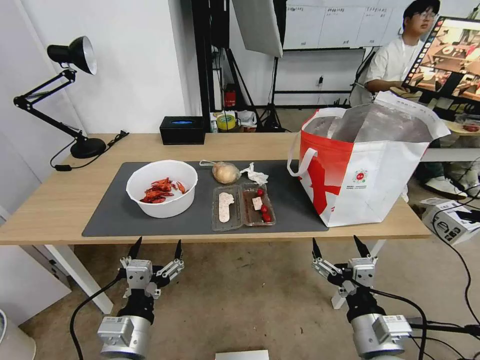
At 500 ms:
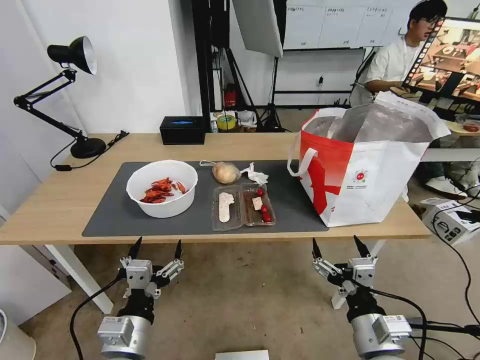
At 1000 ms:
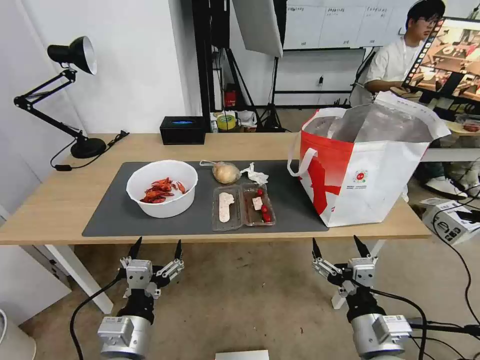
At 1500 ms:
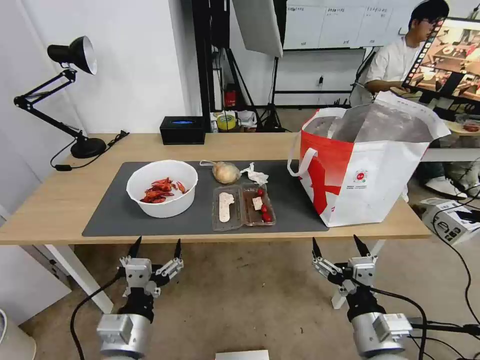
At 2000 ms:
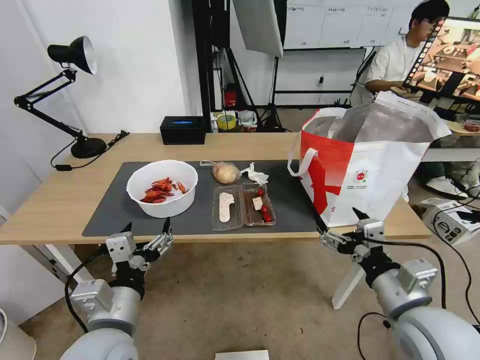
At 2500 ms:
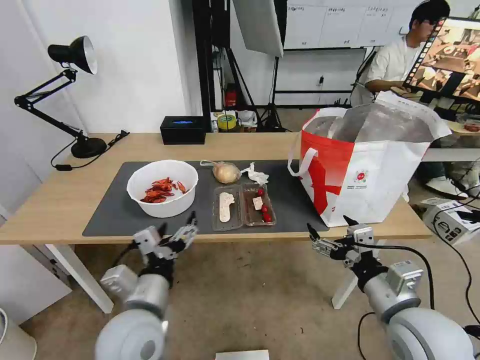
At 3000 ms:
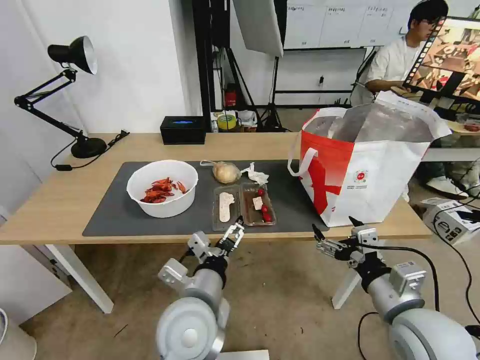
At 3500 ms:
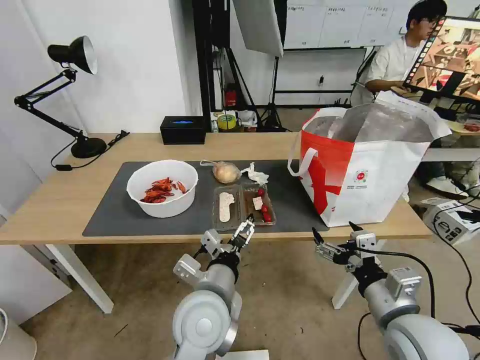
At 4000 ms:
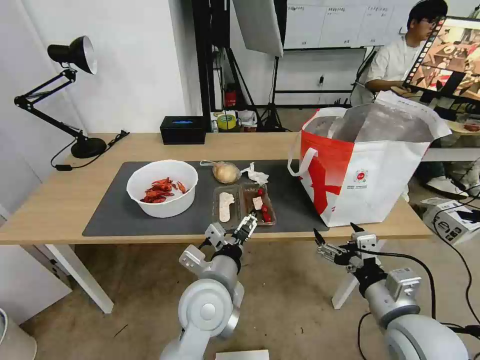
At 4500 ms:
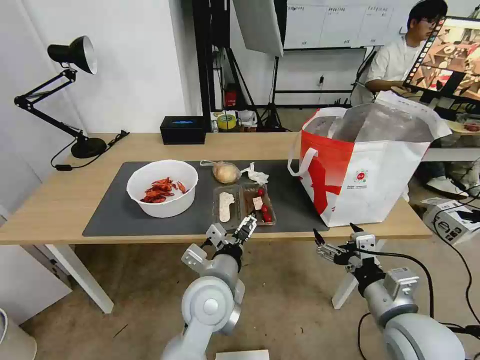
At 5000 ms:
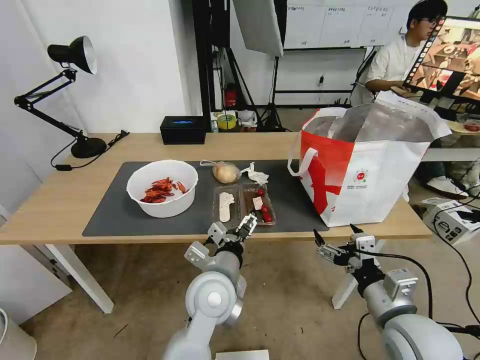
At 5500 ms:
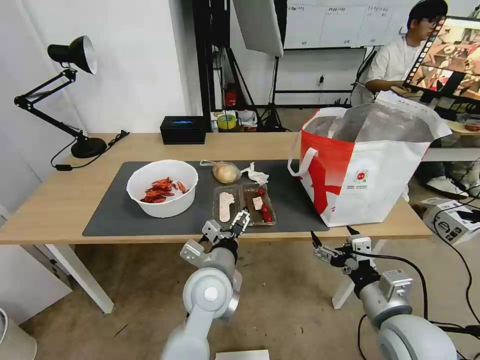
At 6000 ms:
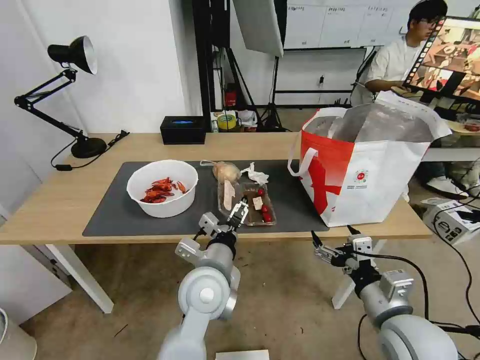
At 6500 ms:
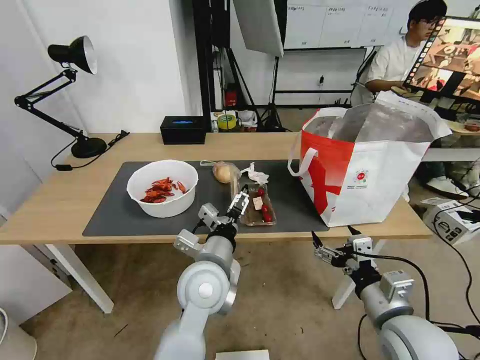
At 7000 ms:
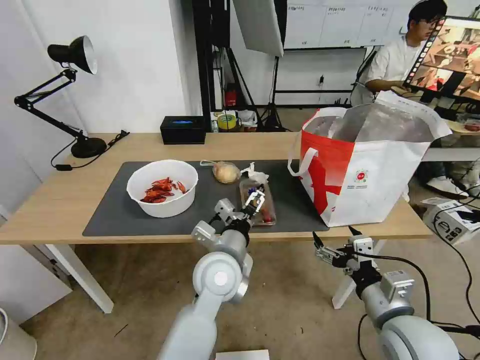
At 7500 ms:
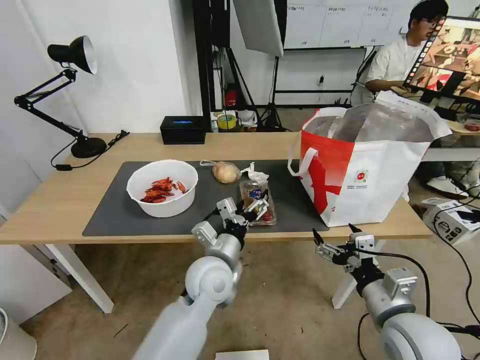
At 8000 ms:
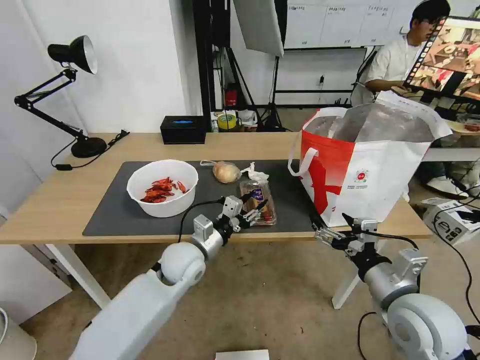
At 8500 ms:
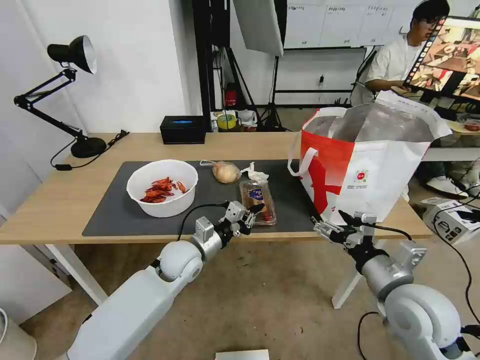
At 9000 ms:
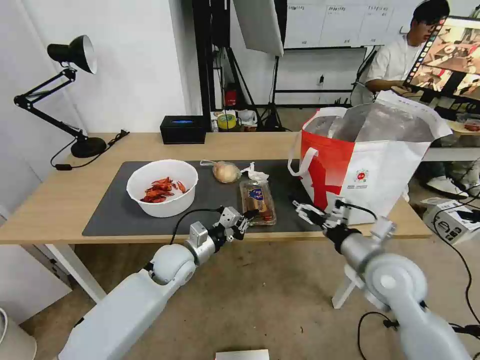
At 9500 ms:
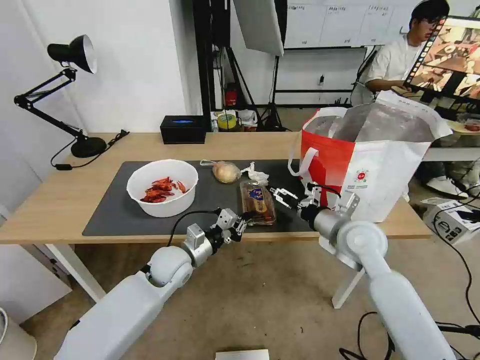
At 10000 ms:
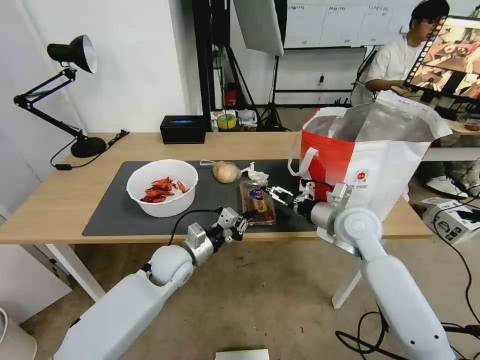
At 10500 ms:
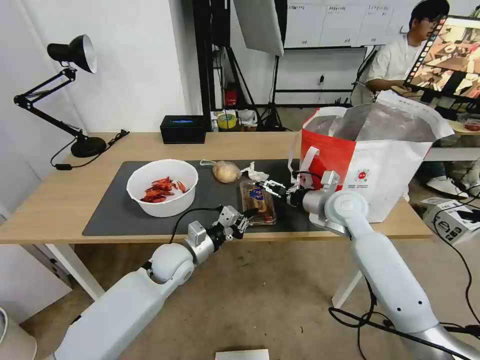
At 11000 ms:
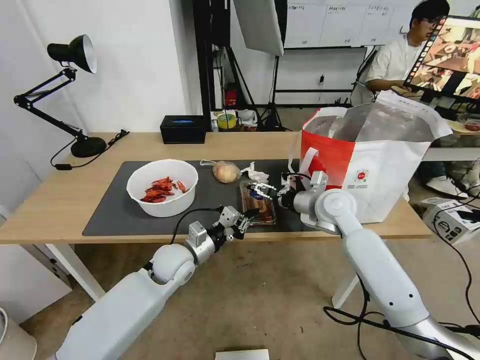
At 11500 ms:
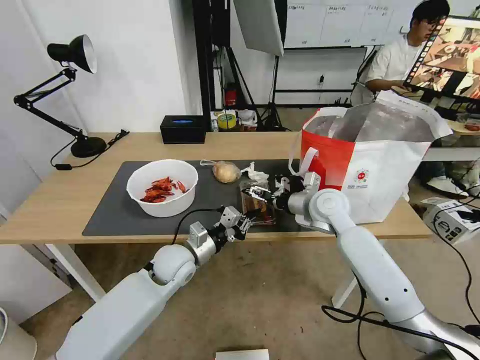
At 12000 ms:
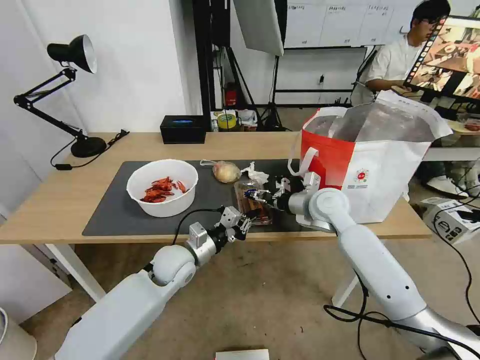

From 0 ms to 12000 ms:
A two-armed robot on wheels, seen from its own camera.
Task of the whole recording: Pick up the trash from the table and place it into the takeout bag.
From 2000 ms to 4000 ms: The left gripper goes some 15 cm to the right and forward.
From 4000 ms to 6000 ms: The grippers stay close to where they were, moving slightly.
From 6000 ms to 8000 ms: The left gripper is displaced forward, to the left and downward by roughly 10 cm, and closes its fingers.
From 8000 ms to 10000 ms: The right gripper heads forward, covering about 20 cm. Meanwhile the left gripper closes.
From 10000 ms to 12000 ms: The right gripper goes some 5 cm forward, and closes up.

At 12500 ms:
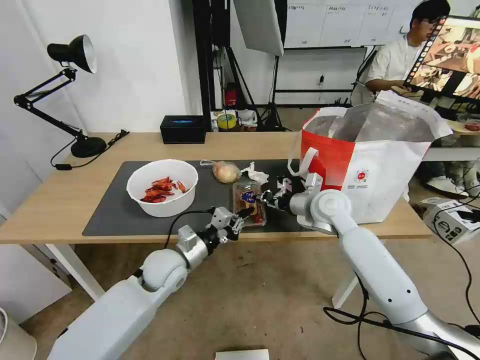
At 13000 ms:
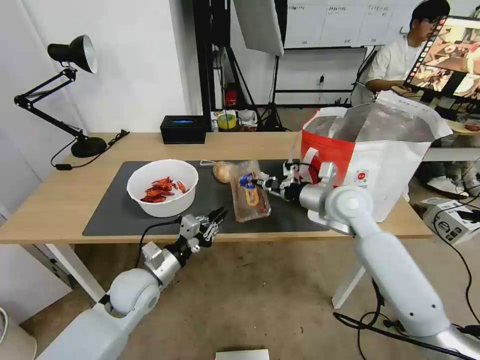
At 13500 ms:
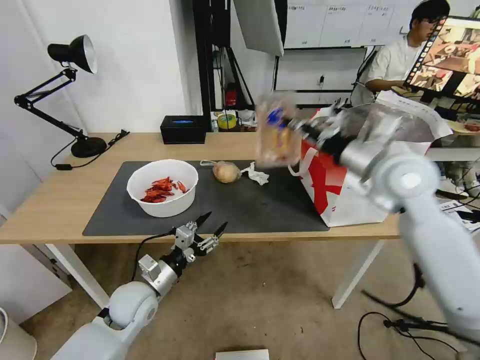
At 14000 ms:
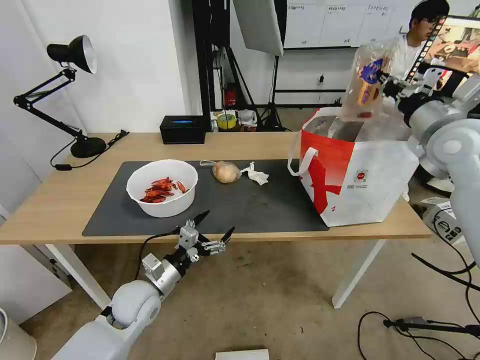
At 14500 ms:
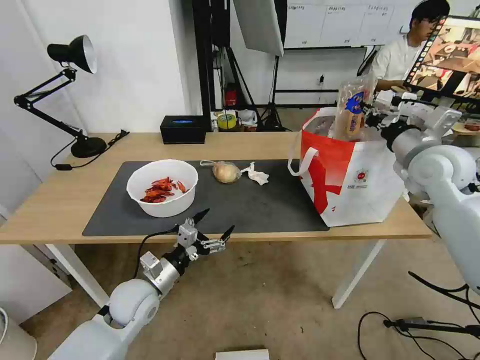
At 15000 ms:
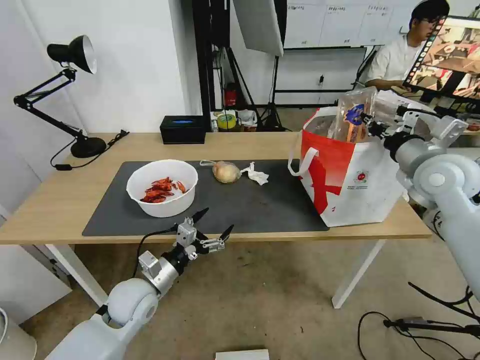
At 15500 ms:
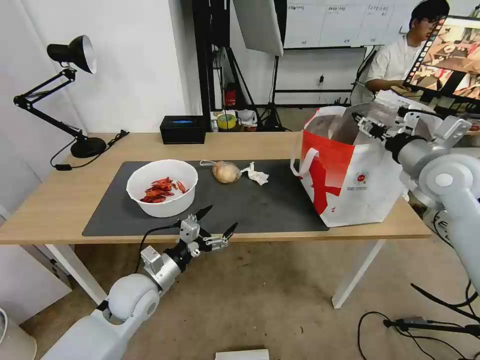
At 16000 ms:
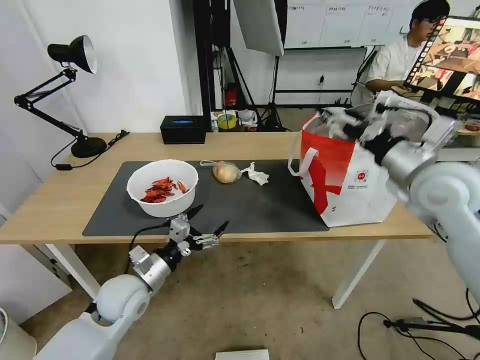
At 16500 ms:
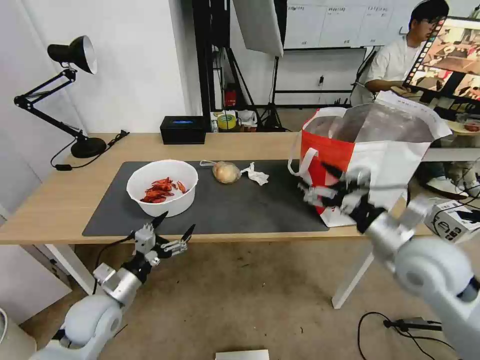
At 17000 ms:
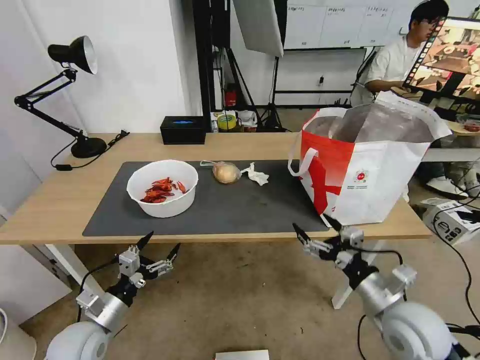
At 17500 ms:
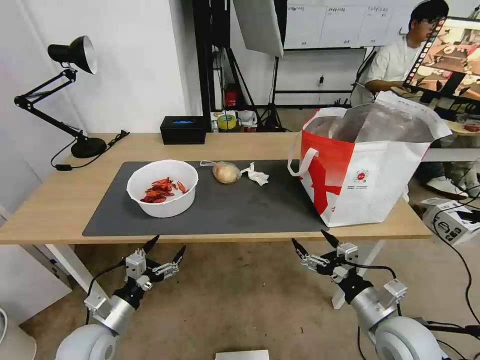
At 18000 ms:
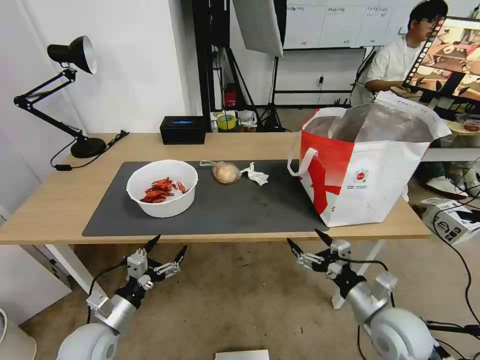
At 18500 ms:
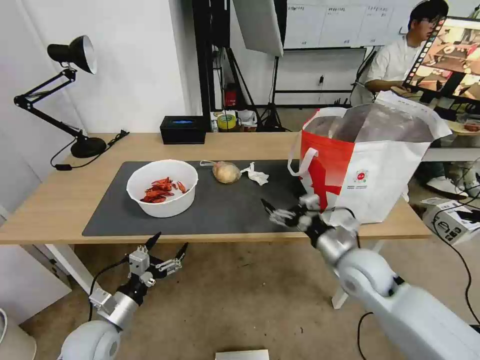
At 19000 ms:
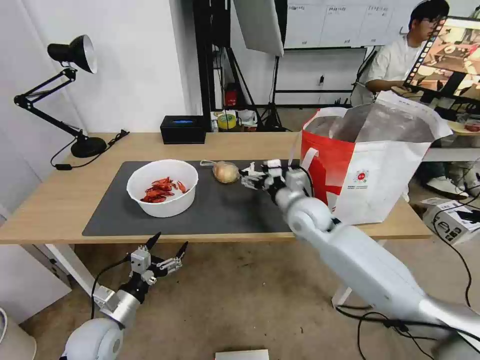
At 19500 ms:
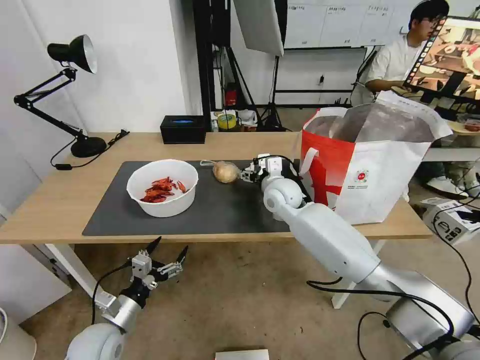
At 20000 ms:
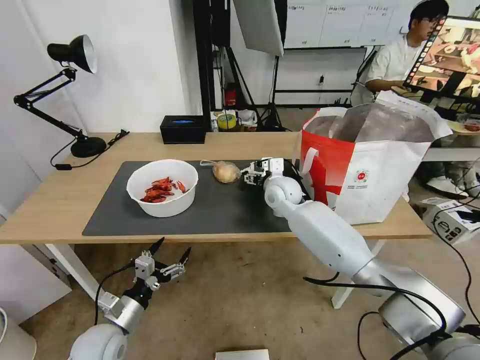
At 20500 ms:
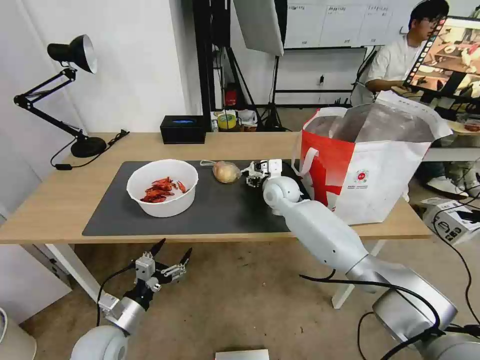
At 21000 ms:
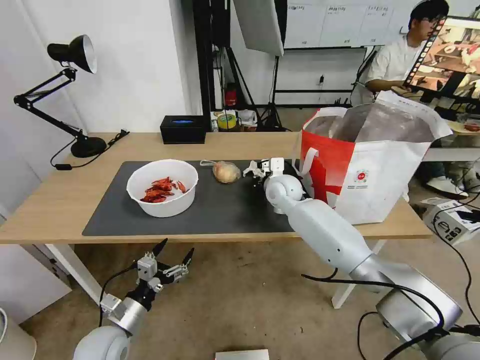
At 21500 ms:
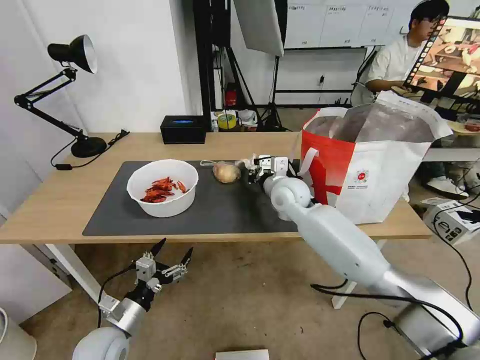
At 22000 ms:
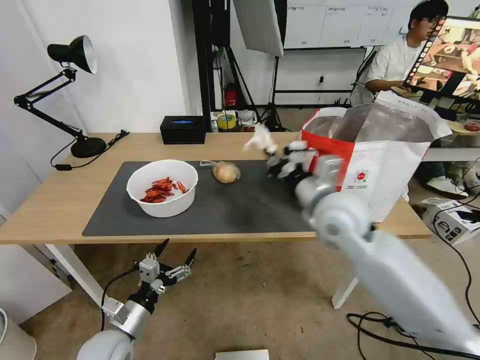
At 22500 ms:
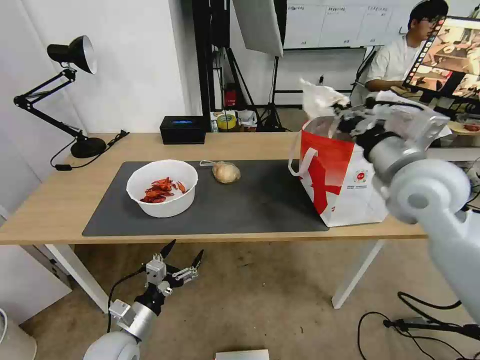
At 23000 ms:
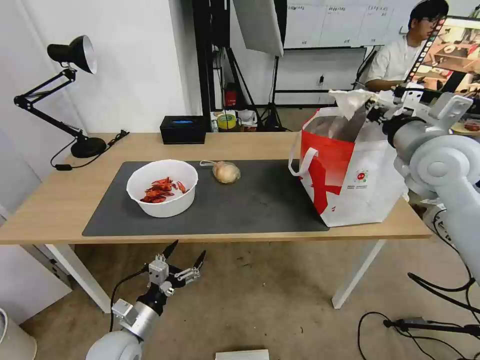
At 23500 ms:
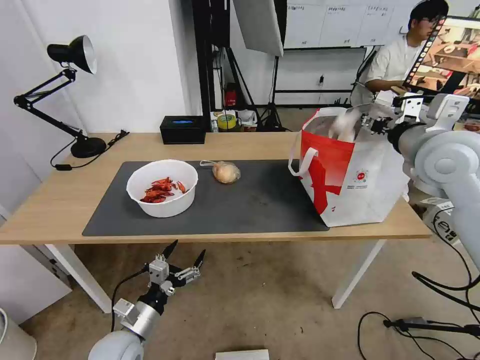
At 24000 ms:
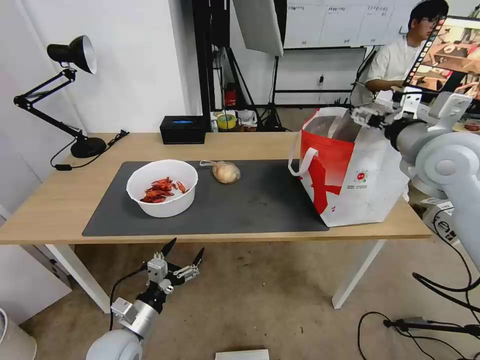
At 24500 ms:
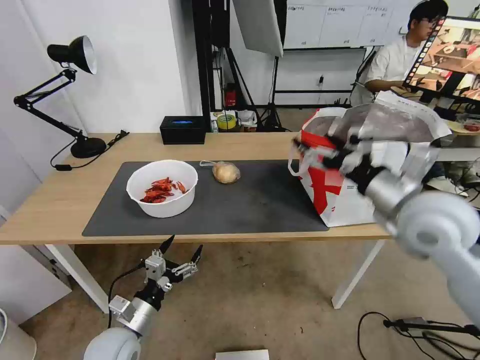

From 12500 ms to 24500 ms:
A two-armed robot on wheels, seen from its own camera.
Task of the whole recording: Pick up the trash from the table and place it into the takeout bag.
From 12500 ms to 14500 ms: The left gripper moves backward and to the left, about 10 cm, and opens its fingers. The right gripper travels to the right and upward by roughly 20 cm.
From 14500 ms to 16500 ms: The right gripper goes about 20 cm backward, downward and to the left, and opens its fingers. Meanwhile the left gripper travels to the left by approximately 5 cm.
From 16500 ms to 18500 ms: The right gripper shifts roughly 10 cm downward and to the left, while the left gripper ends up approximately 5 cm from where it was.
From 18500 ms to 20500 ms: The right gripper shifts roughly 25 cm forward and to the left.
From 20500 ms to 22500 ms: The right gripper travels upward, backward and to the right by approximately 30 cm, and closes its fingers.
From 22500 ms to 24500 ms: The right gripper shifts by about 5 cm, and opens up.

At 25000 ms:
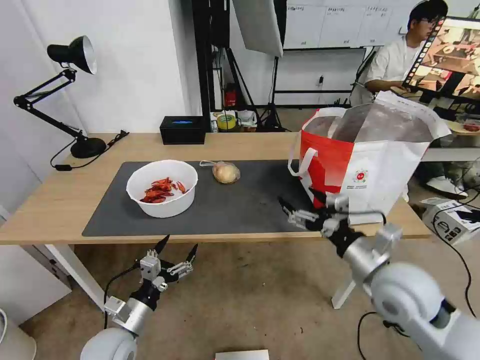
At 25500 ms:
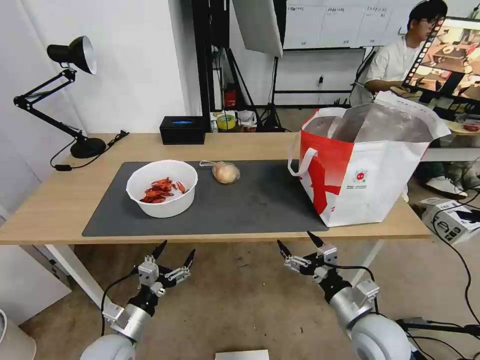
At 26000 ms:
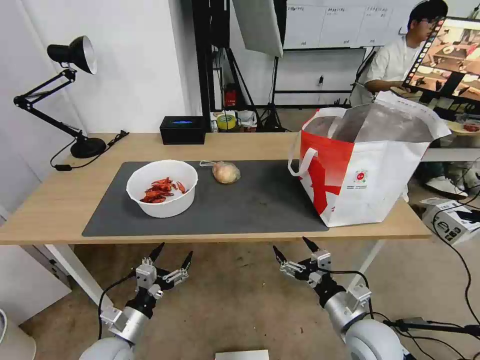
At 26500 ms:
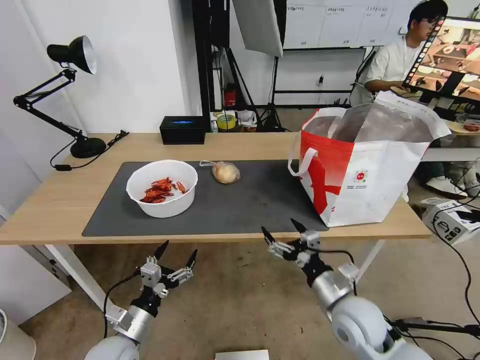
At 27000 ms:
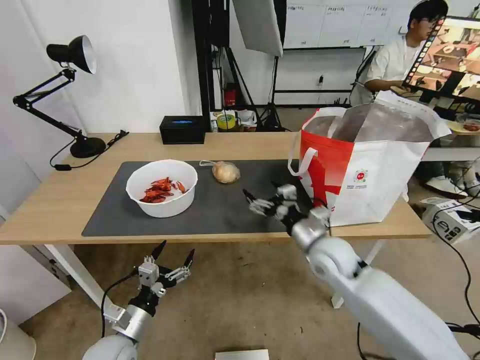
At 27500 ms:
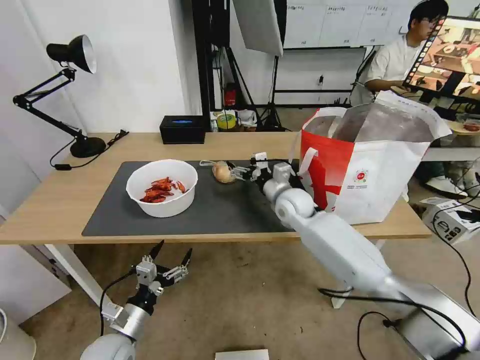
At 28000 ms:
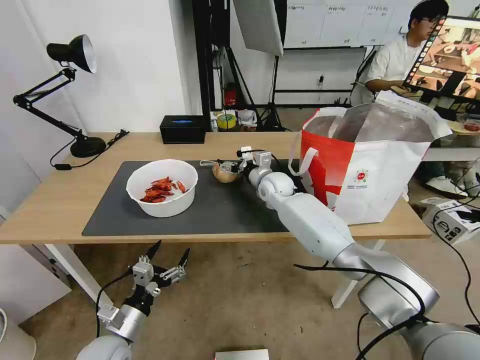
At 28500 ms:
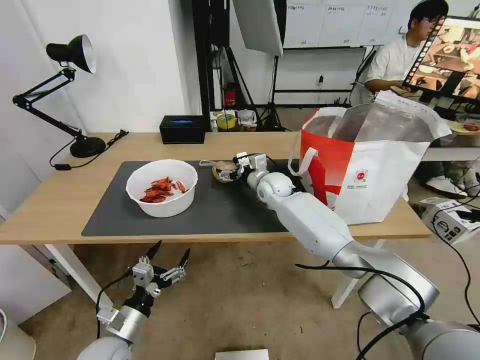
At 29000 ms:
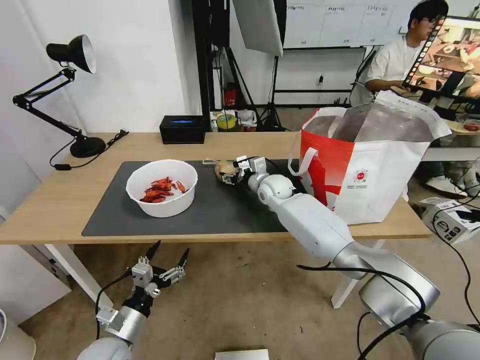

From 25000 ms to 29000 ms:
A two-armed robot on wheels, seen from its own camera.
Task of the whole recording: Pick up the trash from the table and place it into the takeout bag.
From 25000 ms to 27000 ms: The right gripper is displaced forward, to the left and downward by some 15 cm.
From 27000 ms to 29000 ms: The right gripper heads forward and to the left, covering some 25 cm.
